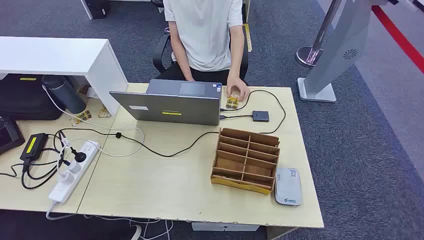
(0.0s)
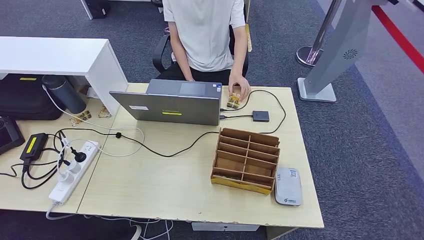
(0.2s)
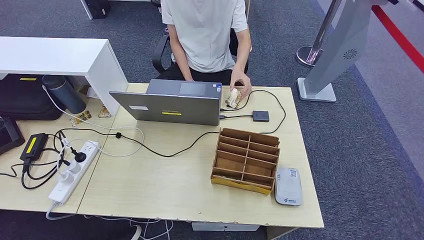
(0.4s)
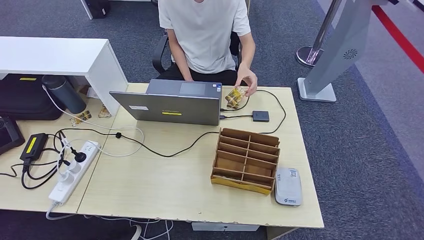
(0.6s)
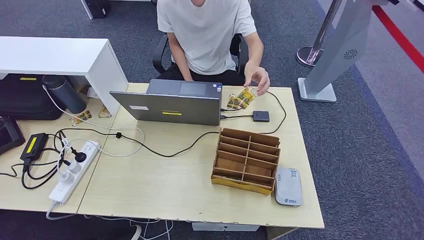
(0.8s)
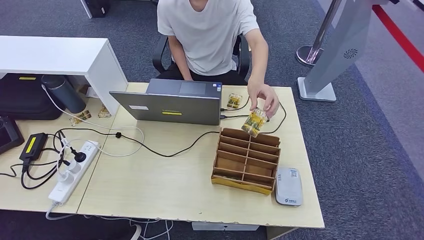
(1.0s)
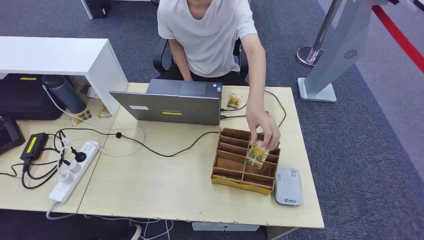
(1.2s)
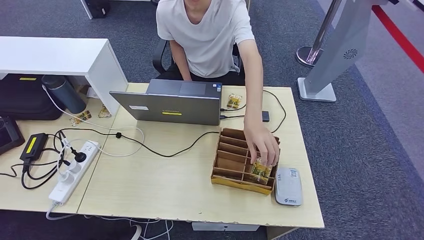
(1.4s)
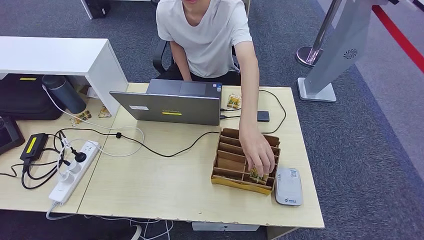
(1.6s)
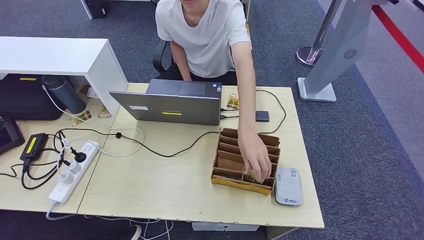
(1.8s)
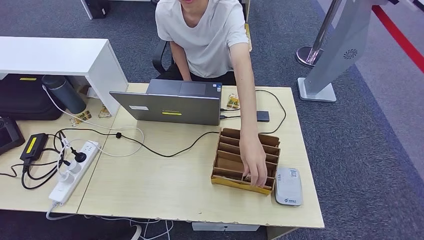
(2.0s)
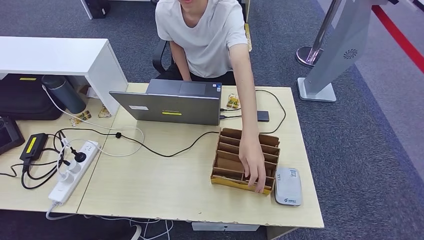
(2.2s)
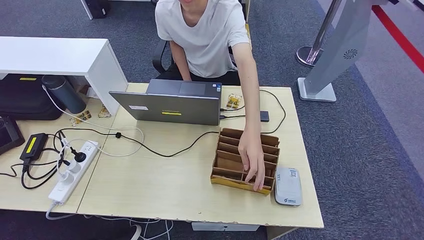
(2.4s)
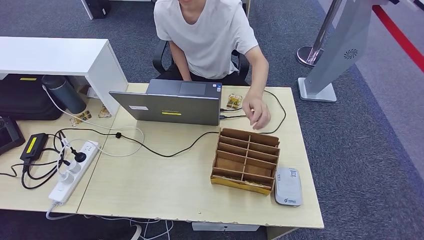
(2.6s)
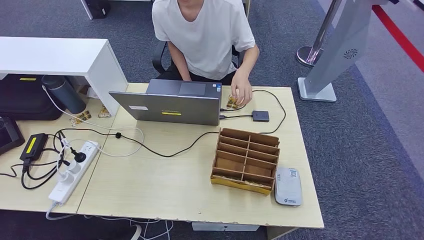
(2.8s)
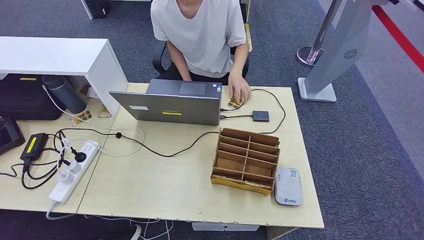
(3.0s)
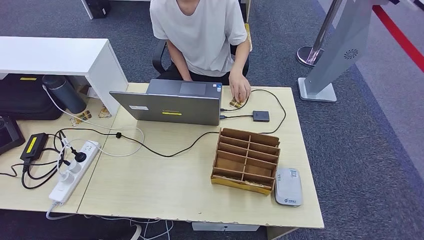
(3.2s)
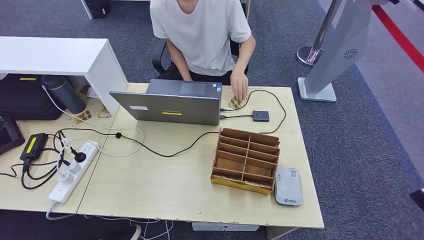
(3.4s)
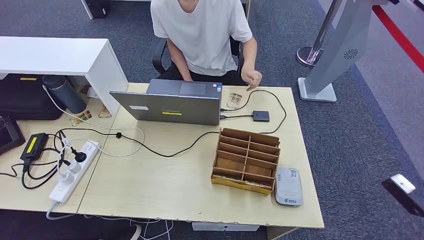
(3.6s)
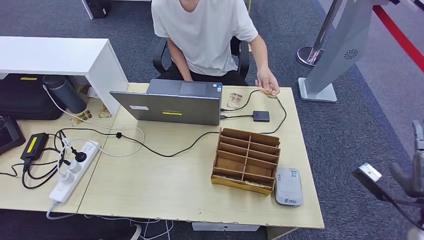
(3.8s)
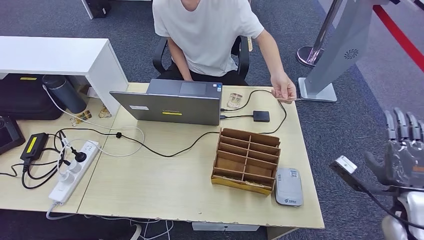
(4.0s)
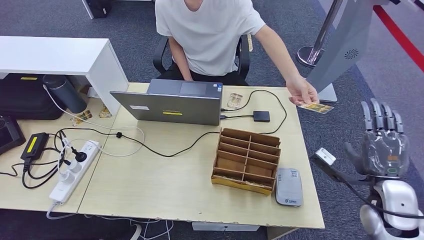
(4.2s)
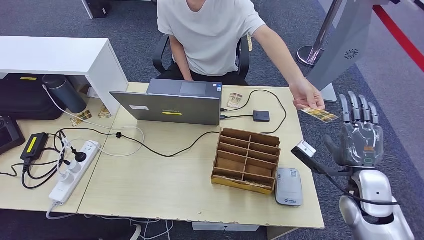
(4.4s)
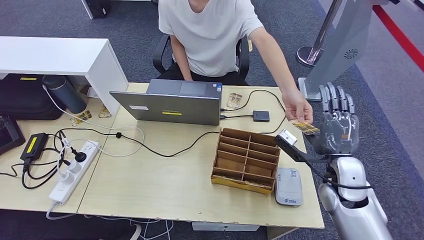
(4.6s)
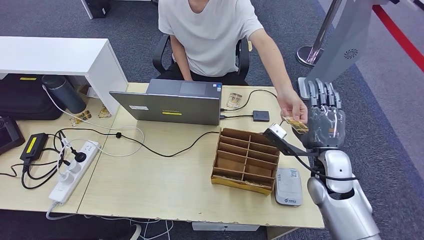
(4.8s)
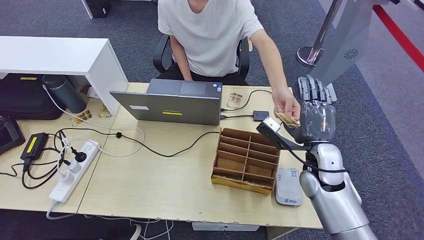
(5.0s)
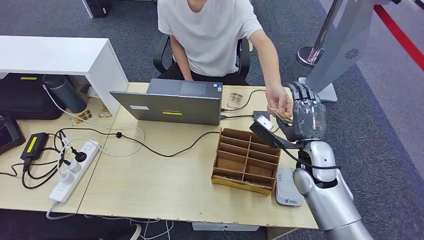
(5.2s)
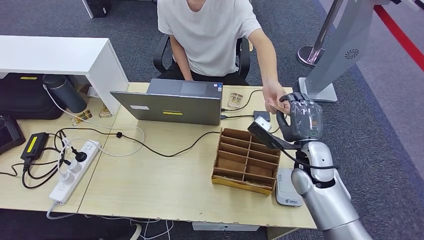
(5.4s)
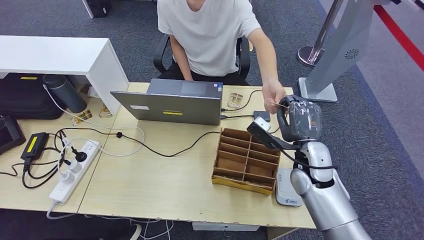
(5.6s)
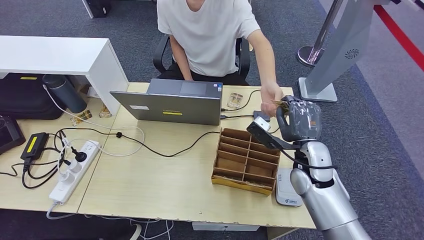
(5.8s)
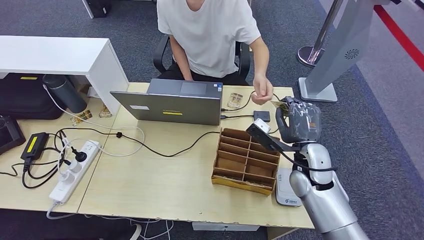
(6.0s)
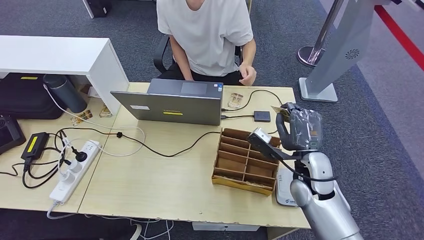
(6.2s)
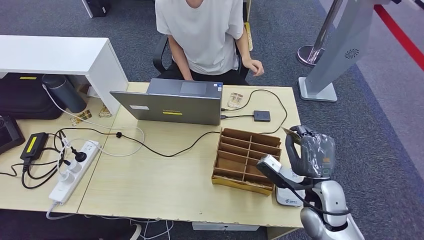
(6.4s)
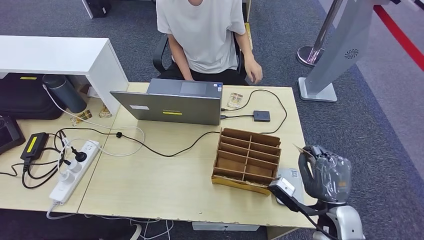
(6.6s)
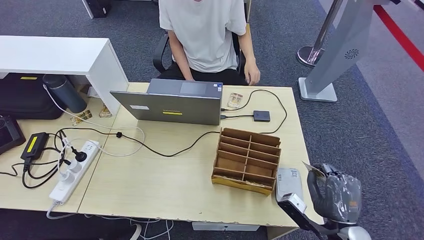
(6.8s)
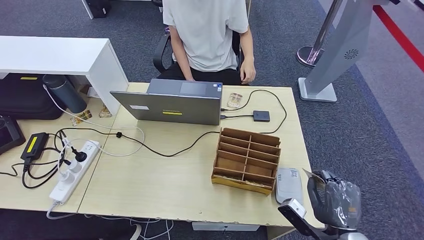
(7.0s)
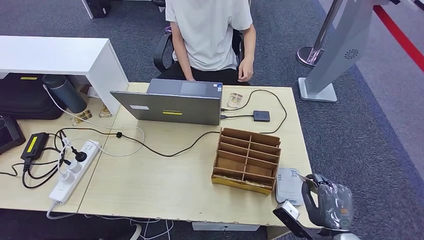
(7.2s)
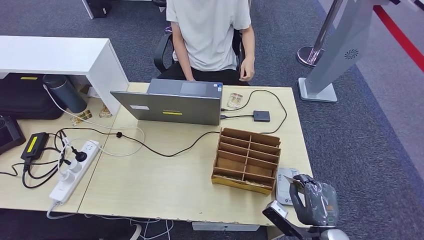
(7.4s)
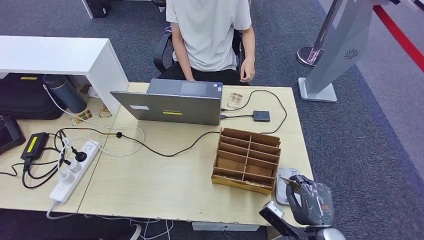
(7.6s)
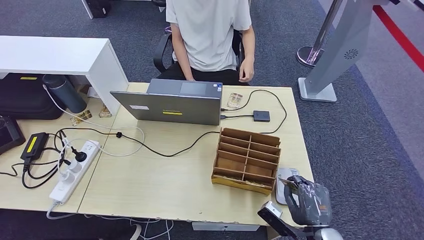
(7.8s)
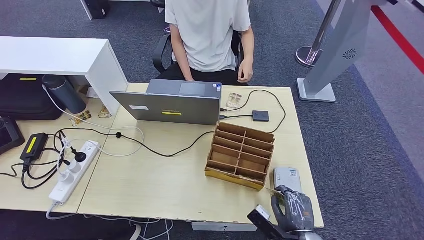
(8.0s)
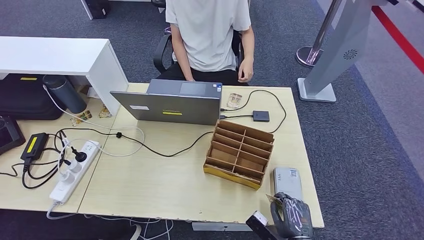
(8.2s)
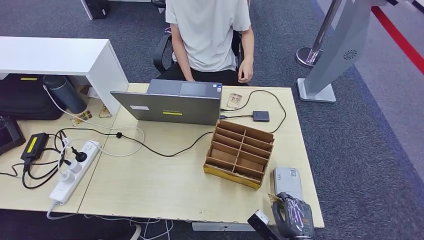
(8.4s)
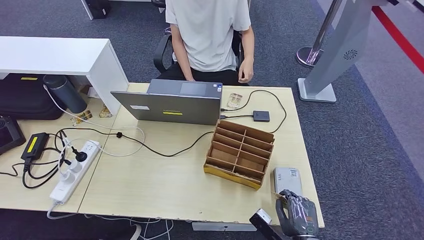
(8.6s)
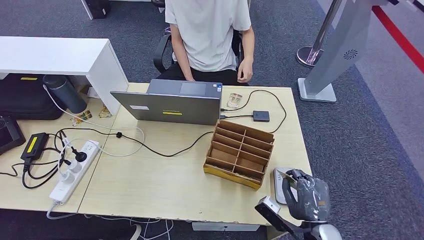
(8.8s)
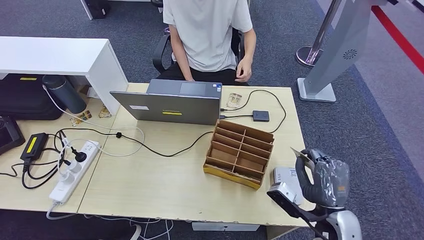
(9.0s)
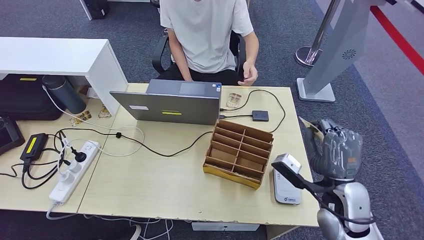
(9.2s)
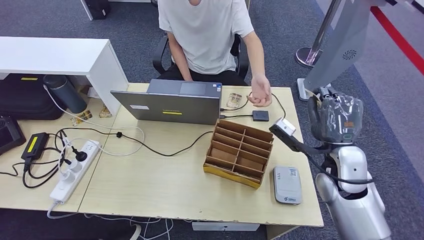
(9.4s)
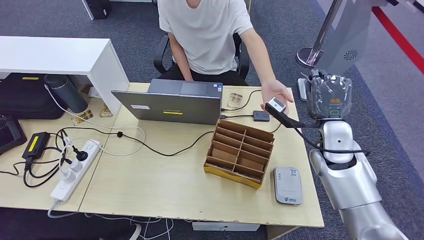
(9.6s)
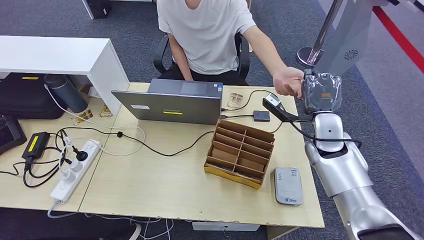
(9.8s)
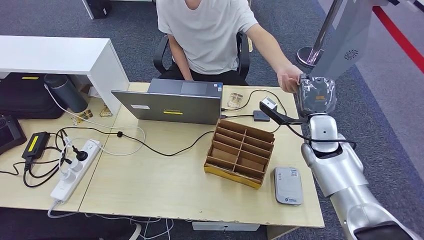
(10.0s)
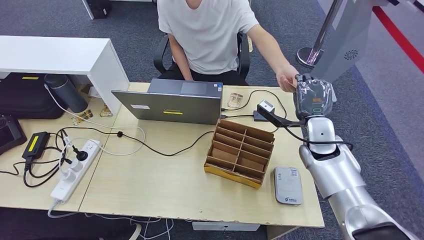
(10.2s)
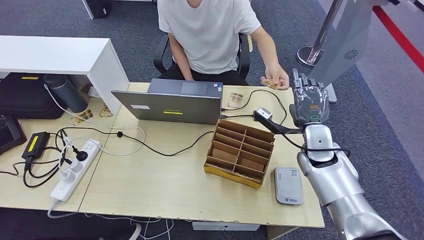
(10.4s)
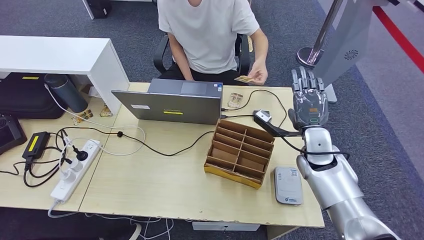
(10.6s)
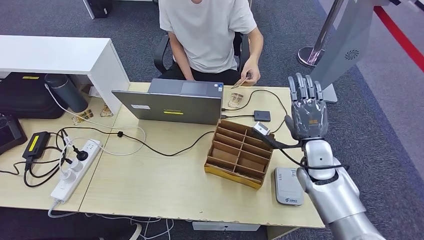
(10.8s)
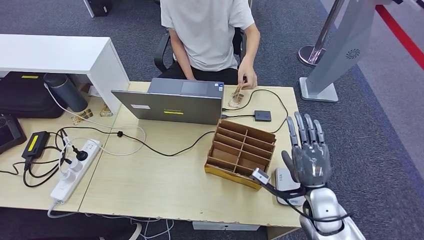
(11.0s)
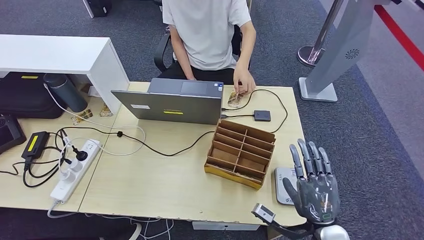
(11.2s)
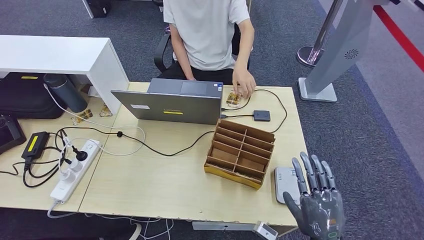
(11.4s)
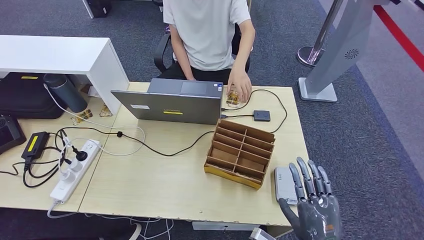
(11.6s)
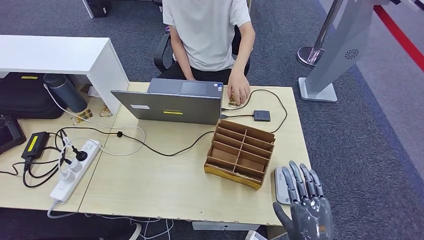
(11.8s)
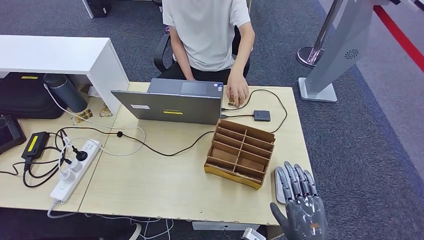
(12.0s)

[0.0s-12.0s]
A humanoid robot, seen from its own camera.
Step, 0.0s to 6.8s: Take the ID card from the person's hand.
Step, 7.2s to 8.6s: Place the ID card on the card reader.
Step, 8.8s to 10.6s: Hand the ID card to the person.
1.6s to 3.0s: The right hand moves to the right and upward, roughly 35 cm.
3.0s to 4.4s: The right hand travels to the left and forward by some 35 cm.
4.4s to 6.0s: The right hand heads to the left and forward, covering roughly 15 cm.
6.0s to 7.6s: The right hand is displaced backward and downward by approximately 20 cm.
7.6s to 9.0s: The right hand is displaced upward by some 5 cm.
9.0s to 10.4s: The right hand shifts roughly 20 cm forward.
10.4s to 12.0s: The right hand moves backward, some 25 cm.

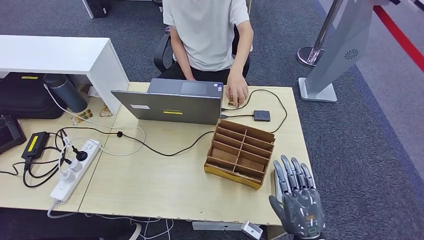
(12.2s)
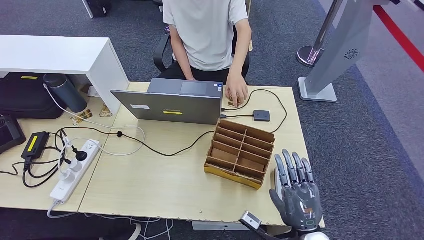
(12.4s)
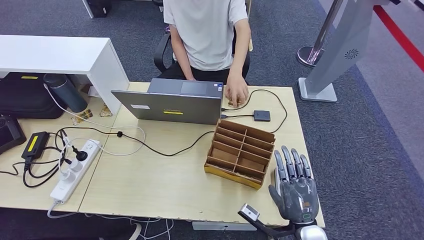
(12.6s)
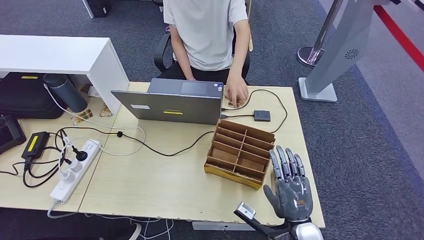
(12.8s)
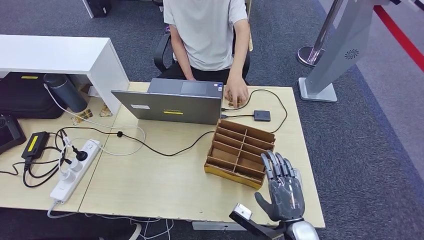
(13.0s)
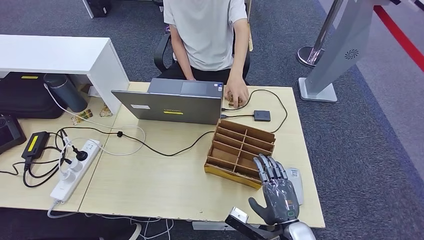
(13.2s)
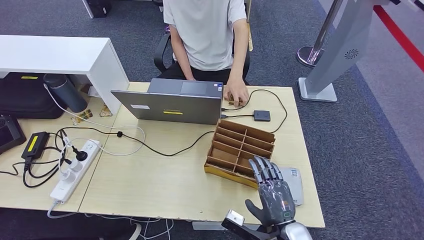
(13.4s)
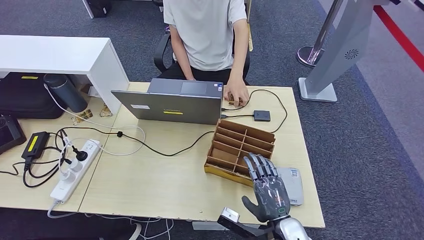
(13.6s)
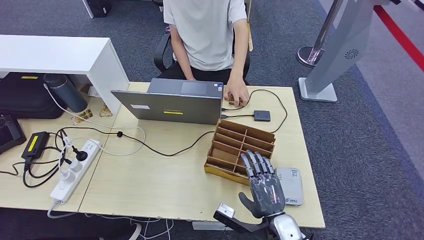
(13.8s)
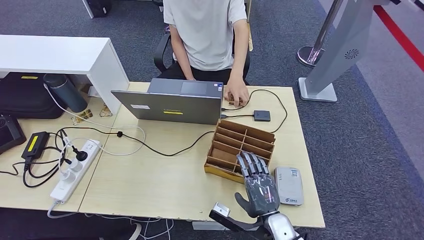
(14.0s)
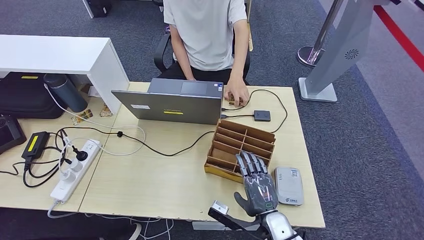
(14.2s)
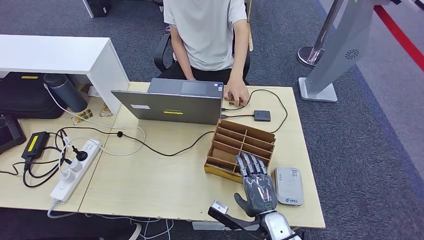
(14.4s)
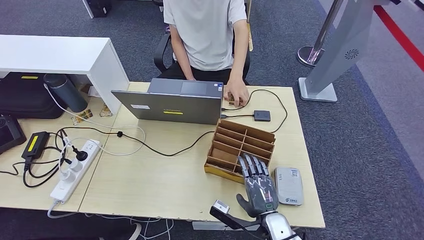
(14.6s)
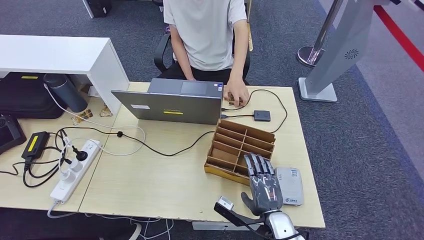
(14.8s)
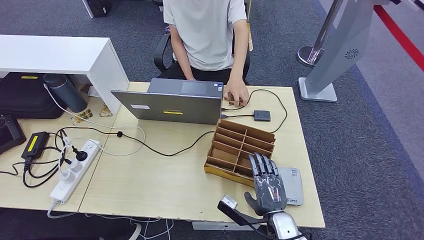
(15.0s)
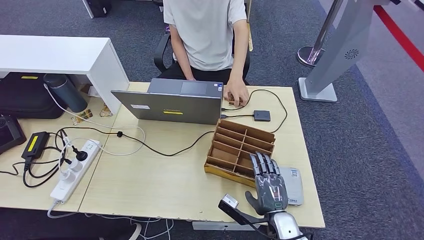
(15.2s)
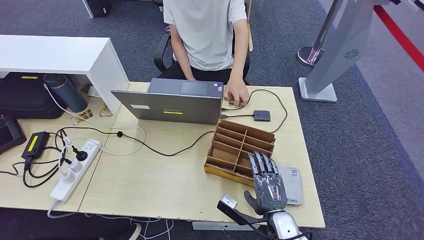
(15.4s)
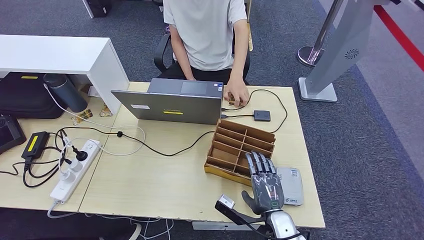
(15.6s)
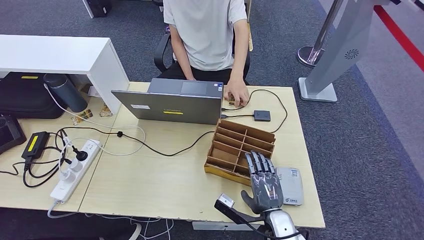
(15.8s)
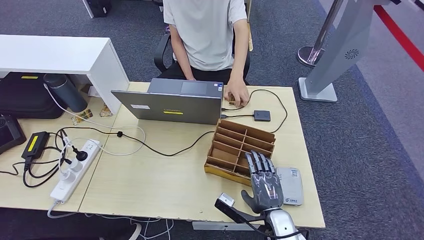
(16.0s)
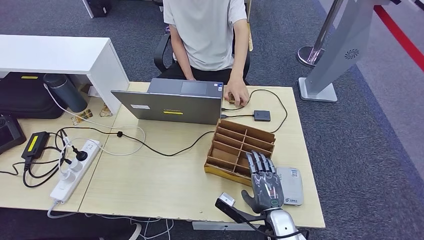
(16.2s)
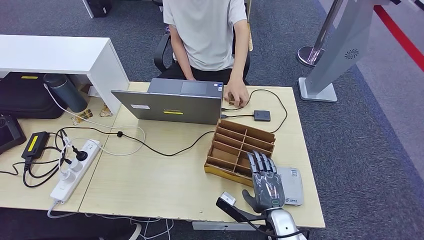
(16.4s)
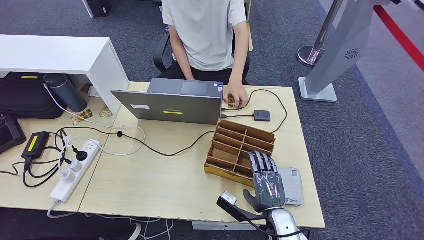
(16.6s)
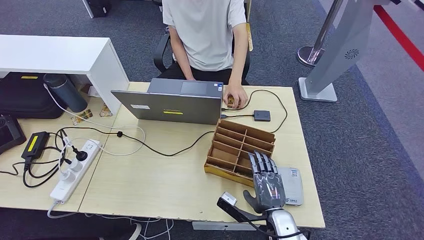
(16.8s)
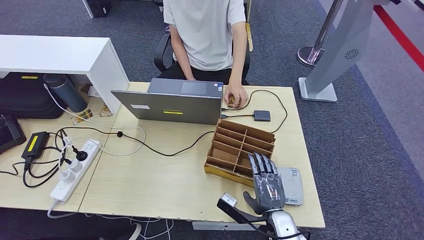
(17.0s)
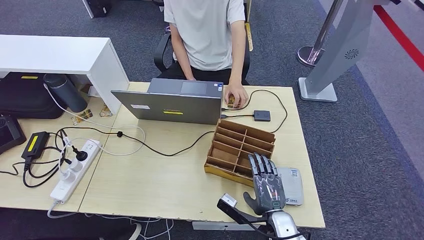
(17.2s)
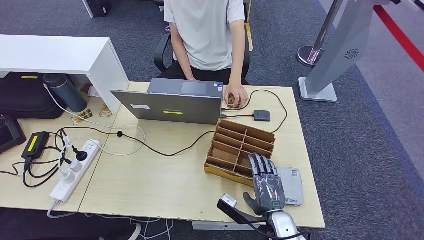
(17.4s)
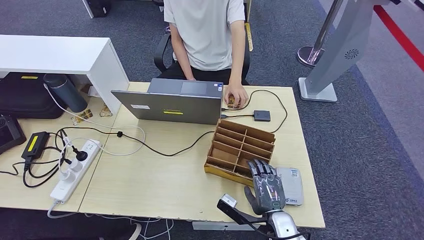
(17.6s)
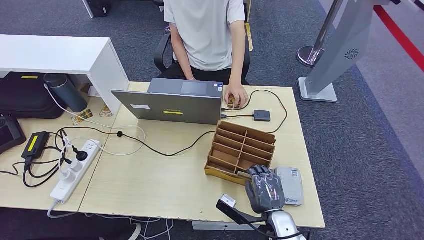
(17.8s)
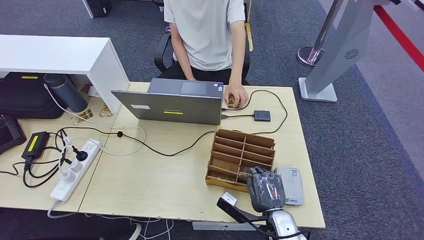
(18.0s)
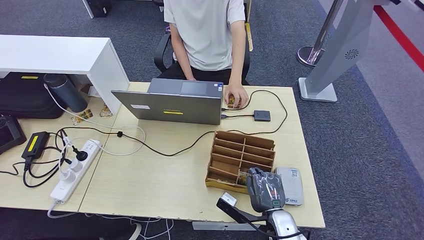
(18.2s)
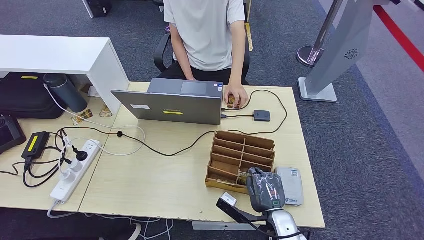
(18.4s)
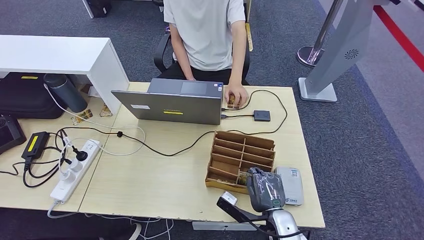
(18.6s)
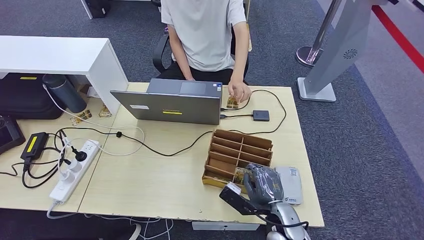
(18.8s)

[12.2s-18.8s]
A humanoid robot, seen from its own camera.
Step, 12.2s to 18.6s: Pick up the room key from the key card box.
12.2s to 13.8s: The right hand is displaced to the left by some 5 cm.
13.8s to 15.4s: There are only small adjustments of the hands.
15.4s to 17.2s: Both hands stay put.
17.2s to 18.8s: There are only small adjustments of the hands.
